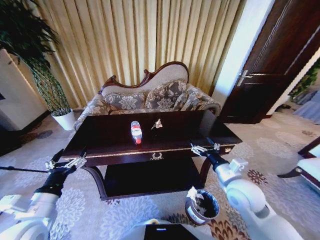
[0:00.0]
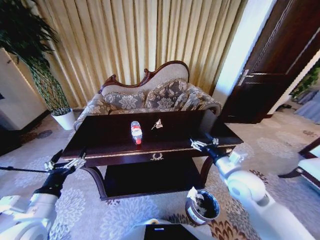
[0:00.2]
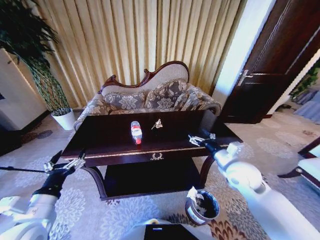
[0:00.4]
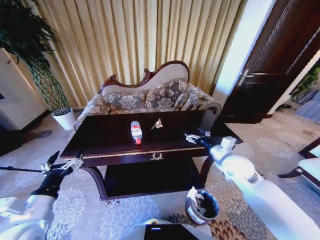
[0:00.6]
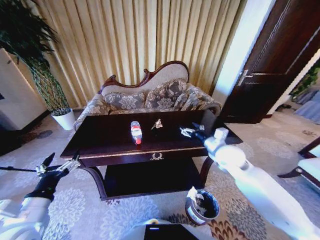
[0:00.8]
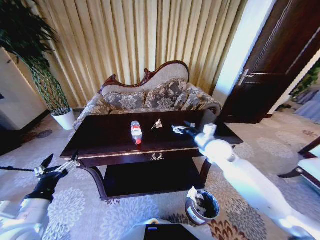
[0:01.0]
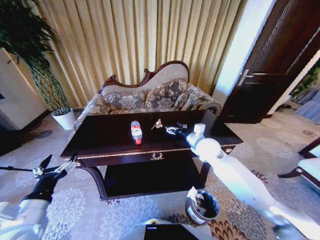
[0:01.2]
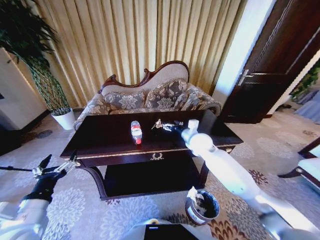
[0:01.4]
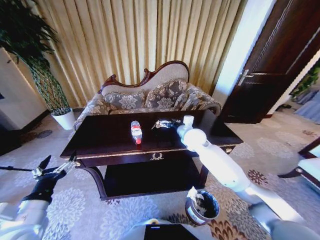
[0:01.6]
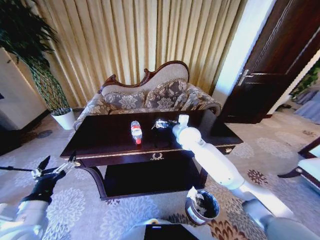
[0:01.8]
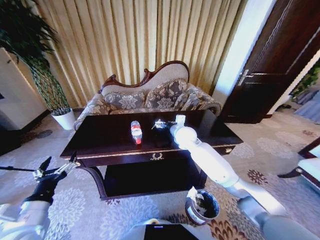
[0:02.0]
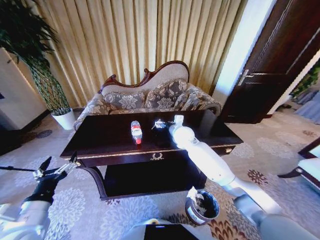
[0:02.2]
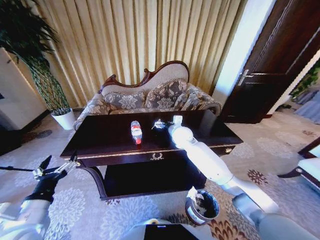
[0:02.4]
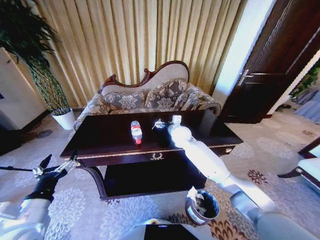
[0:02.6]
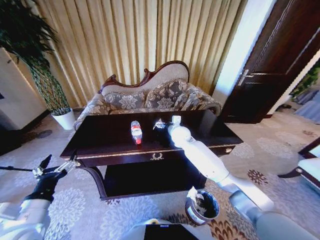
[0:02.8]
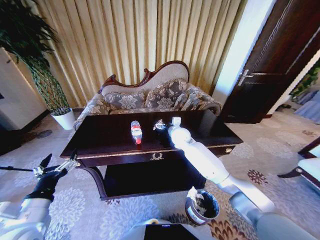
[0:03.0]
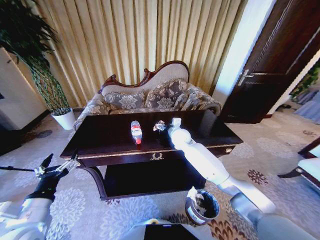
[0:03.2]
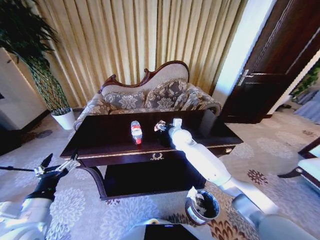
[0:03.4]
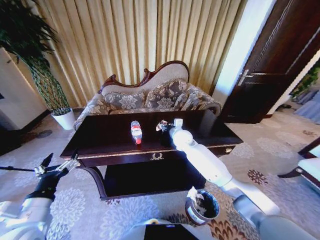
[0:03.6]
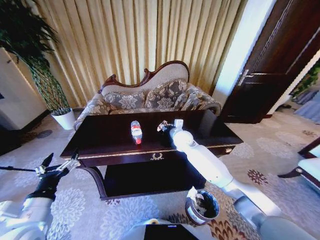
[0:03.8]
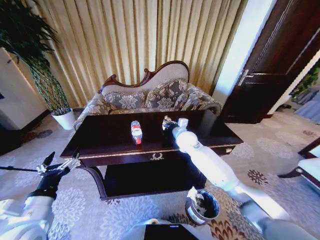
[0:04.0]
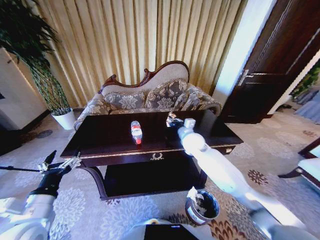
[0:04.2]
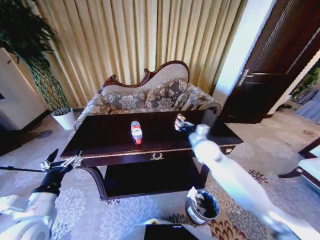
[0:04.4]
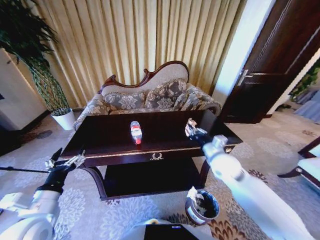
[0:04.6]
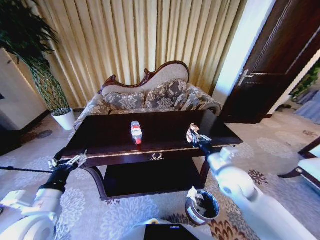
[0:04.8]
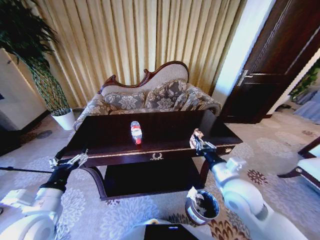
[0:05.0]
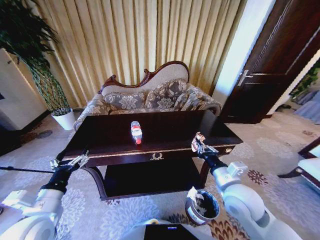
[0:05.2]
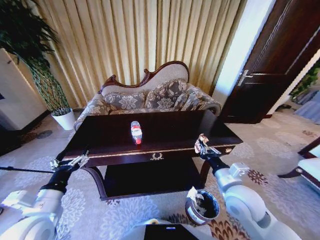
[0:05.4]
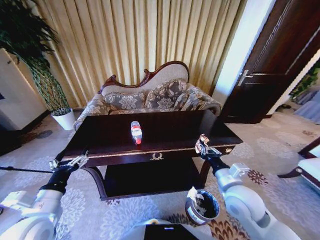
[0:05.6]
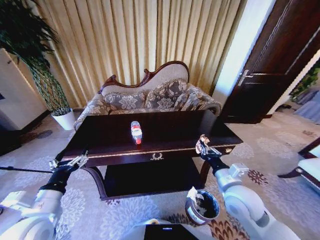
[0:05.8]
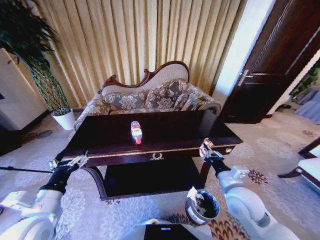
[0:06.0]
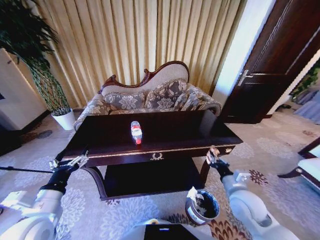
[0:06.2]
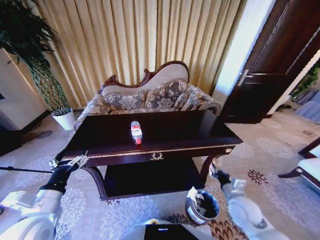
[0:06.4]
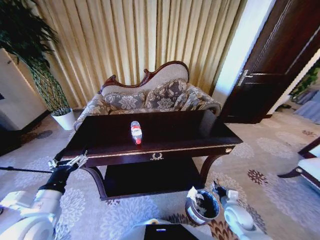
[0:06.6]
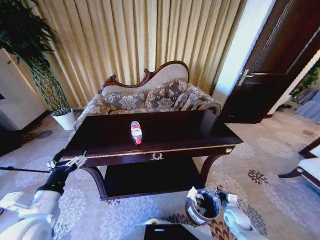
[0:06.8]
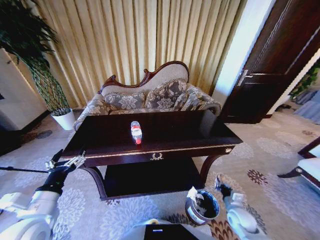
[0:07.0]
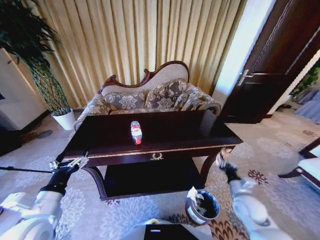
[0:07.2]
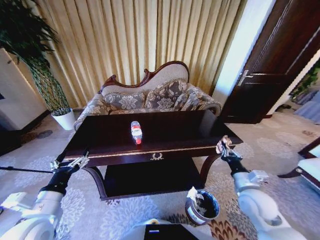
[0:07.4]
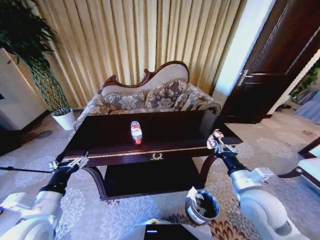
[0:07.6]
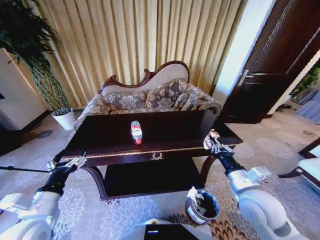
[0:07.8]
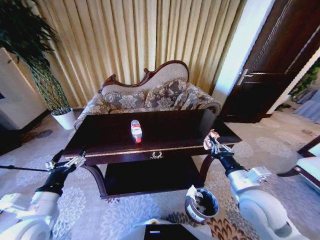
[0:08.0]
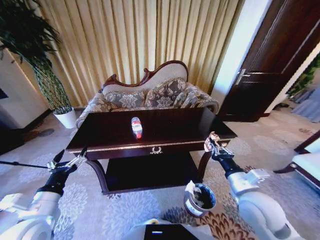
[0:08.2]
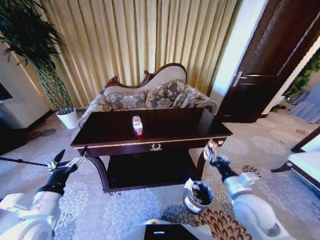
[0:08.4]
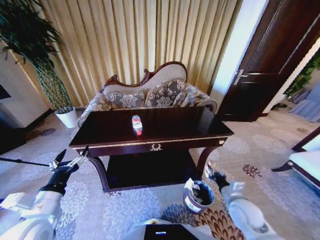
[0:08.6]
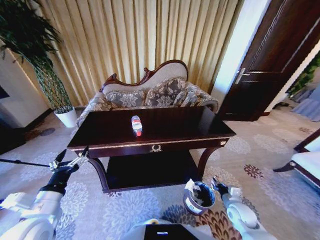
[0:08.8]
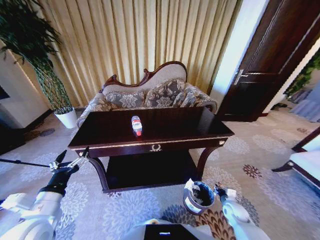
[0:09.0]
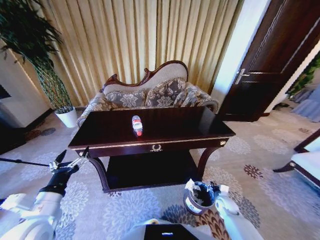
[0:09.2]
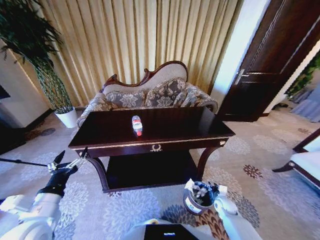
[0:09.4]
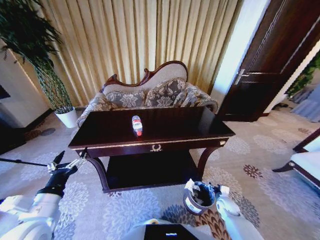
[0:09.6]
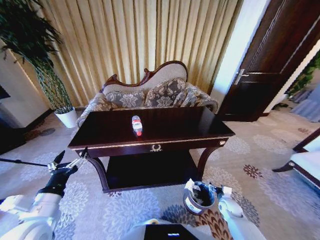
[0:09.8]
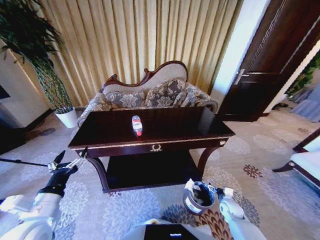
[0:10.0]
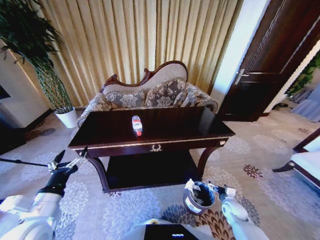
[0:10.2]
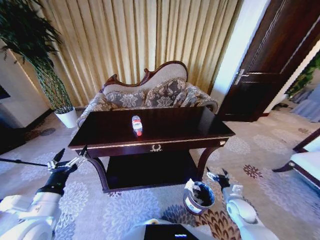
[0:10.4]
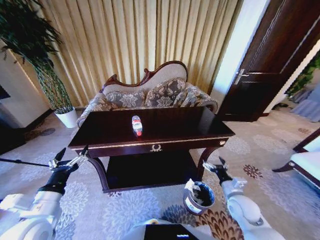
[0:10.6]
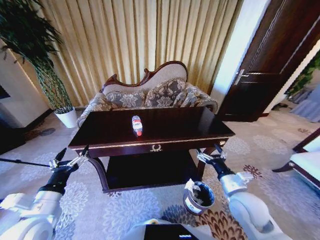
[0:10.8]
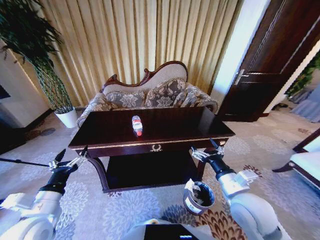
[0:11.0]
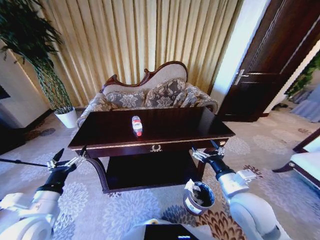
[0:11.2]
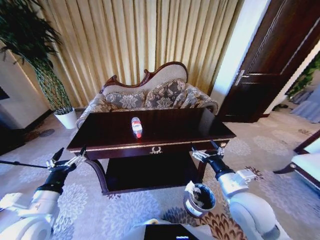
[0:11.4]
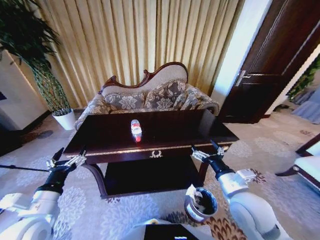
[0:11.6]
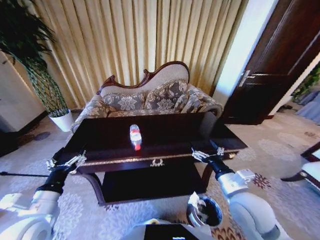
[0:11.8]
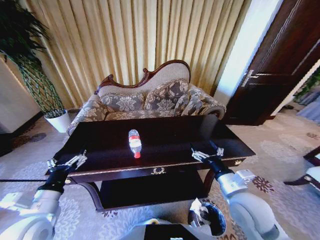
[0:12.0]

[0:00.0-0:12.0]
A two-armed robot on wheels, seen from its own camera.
Task of the whole recording: Move to the front of the table and place the trash on the table into the trash bin.
0:00.0 to 0:01.6: The right gripper shifts roughly 25 cm forward and to the left.
0:01.6 to 0:03.0: The right gripper travels to the left by approximately 5 cm.
0:03.0 to 0:04.4: The right gripper goes roughly 15 cm backward and to the right, and closes up.
0:04.4 to 0:06.0: The right gripper moves backward, some 20 cm.
0:06.0 to 0:07.6: The right gripper travels downward and back again, some 25 cm each way.
0:07.6 to 0:09.0: The right gripper moves downward, approximately 30 cm.
0:09.0 to 0:10.4: The right gripper travels upward by about 5 cm, and opens up.
0:10.4 to 0:12.0: The right gripper shifts roughly 25 cm upward and to the left.

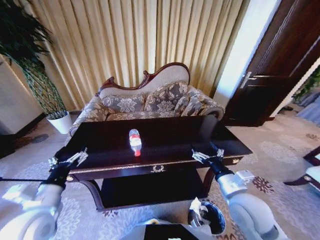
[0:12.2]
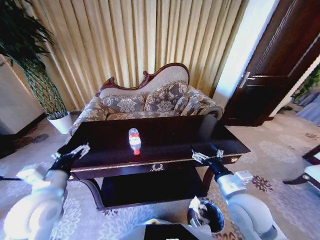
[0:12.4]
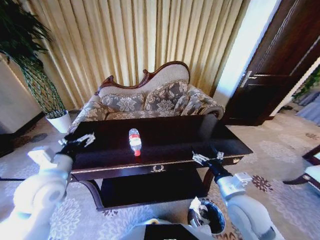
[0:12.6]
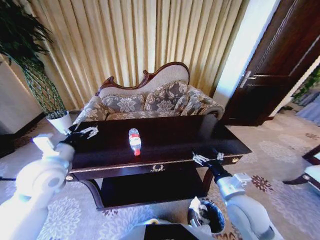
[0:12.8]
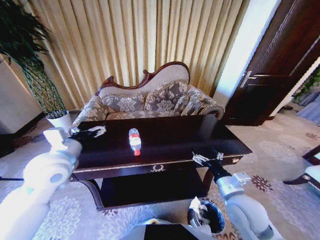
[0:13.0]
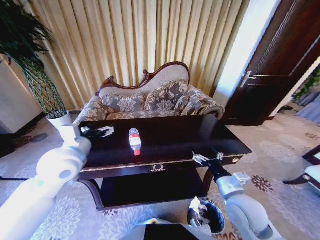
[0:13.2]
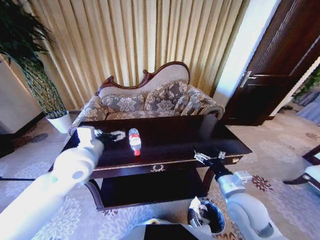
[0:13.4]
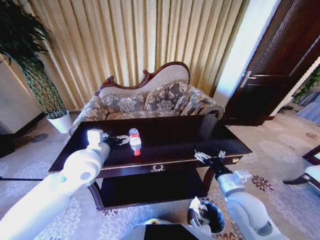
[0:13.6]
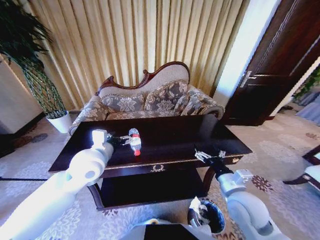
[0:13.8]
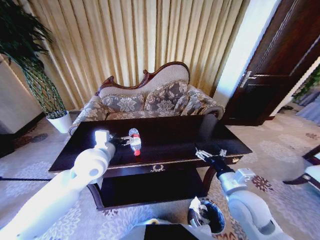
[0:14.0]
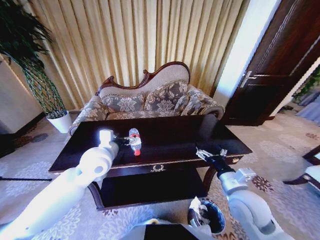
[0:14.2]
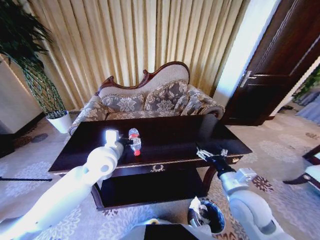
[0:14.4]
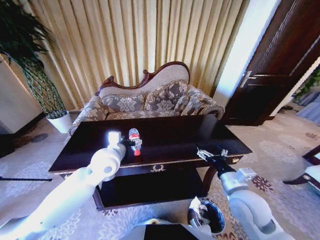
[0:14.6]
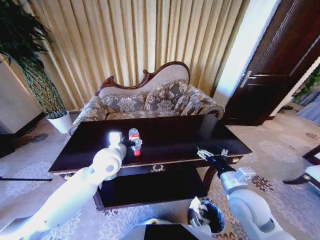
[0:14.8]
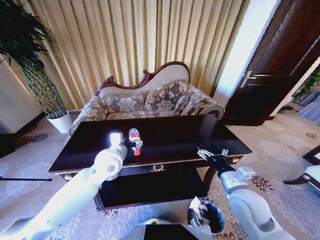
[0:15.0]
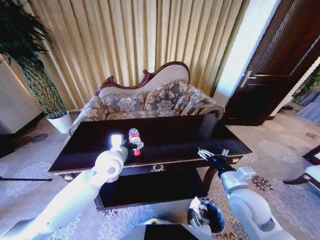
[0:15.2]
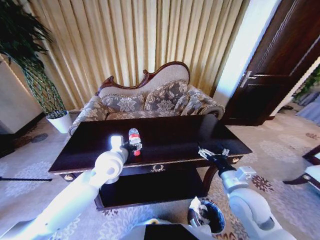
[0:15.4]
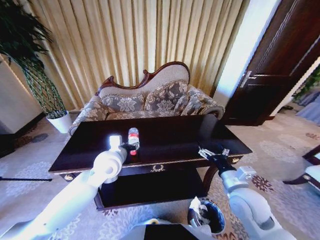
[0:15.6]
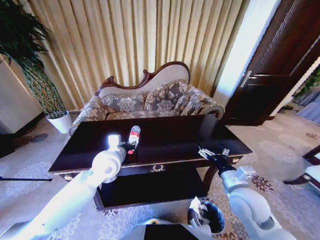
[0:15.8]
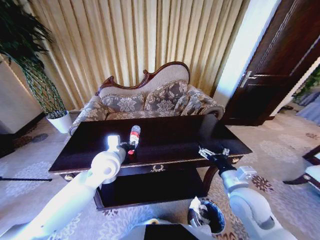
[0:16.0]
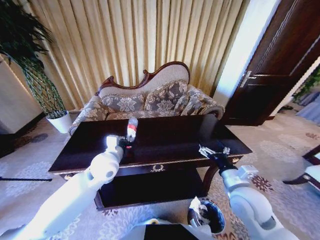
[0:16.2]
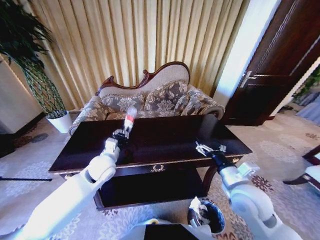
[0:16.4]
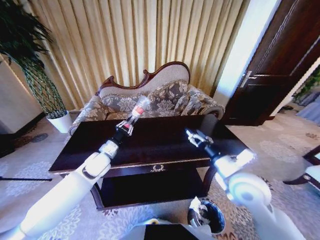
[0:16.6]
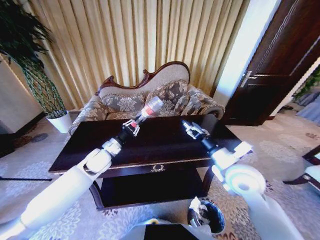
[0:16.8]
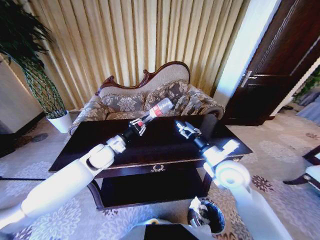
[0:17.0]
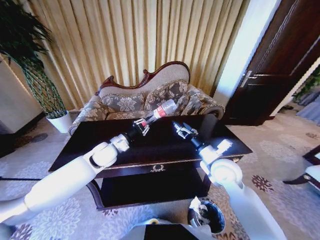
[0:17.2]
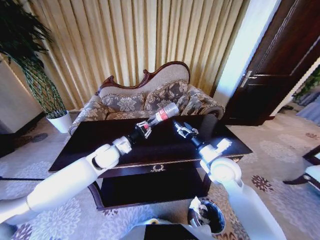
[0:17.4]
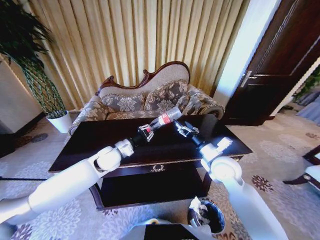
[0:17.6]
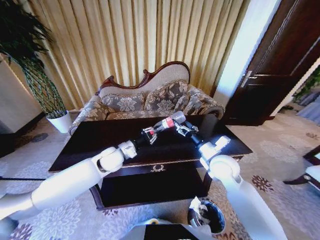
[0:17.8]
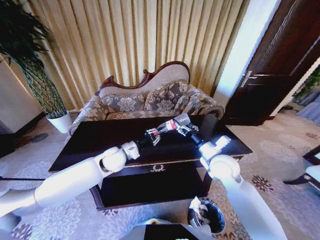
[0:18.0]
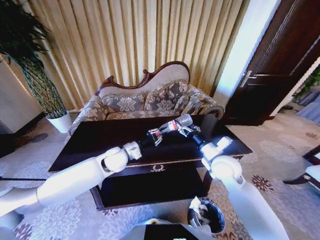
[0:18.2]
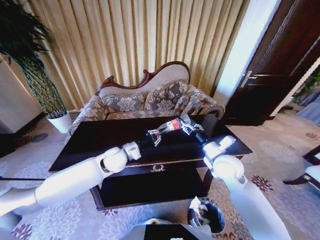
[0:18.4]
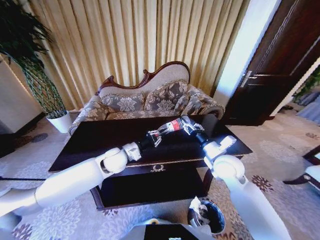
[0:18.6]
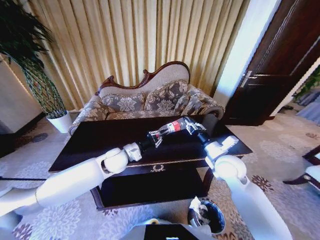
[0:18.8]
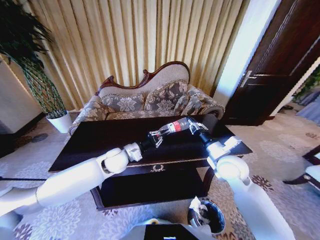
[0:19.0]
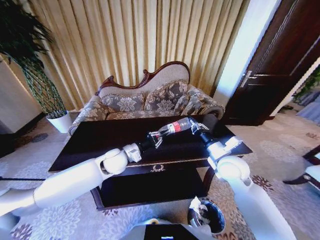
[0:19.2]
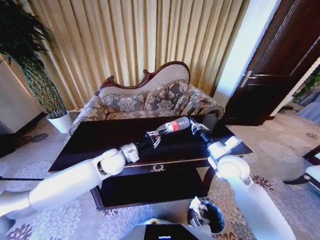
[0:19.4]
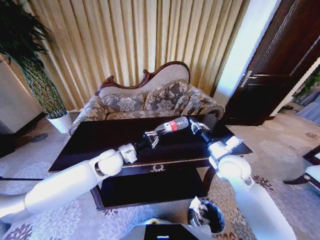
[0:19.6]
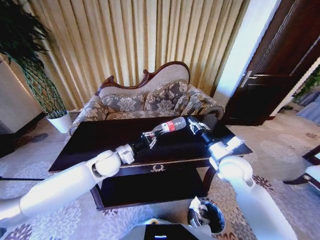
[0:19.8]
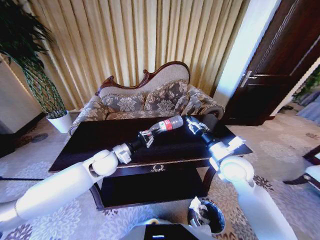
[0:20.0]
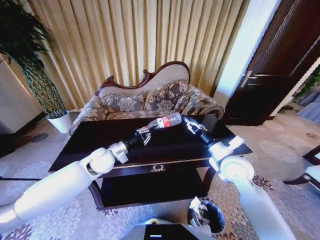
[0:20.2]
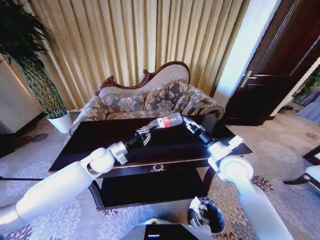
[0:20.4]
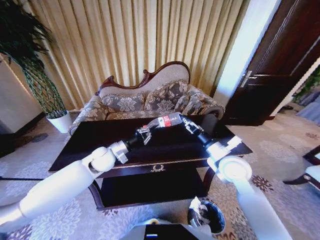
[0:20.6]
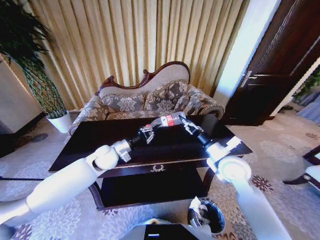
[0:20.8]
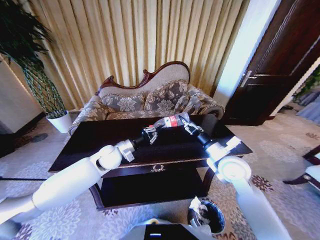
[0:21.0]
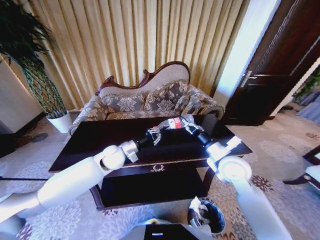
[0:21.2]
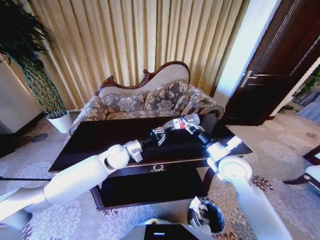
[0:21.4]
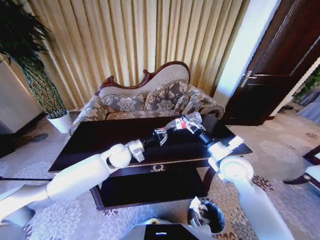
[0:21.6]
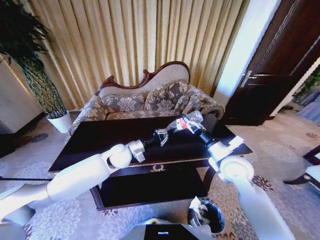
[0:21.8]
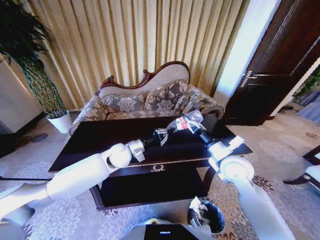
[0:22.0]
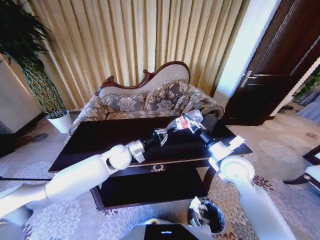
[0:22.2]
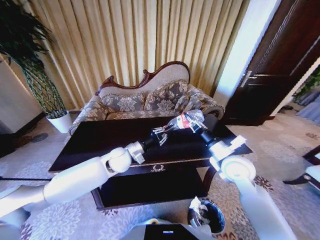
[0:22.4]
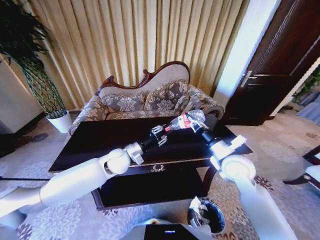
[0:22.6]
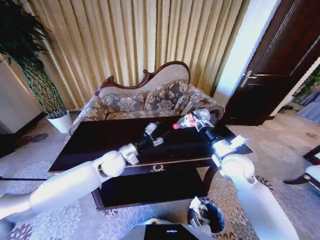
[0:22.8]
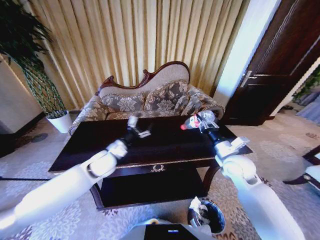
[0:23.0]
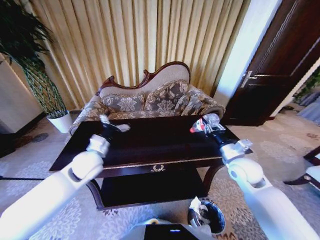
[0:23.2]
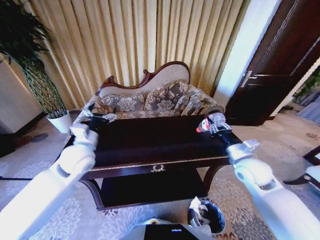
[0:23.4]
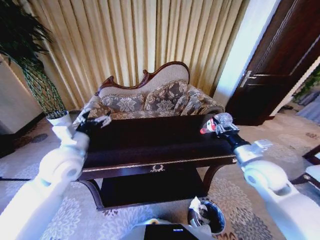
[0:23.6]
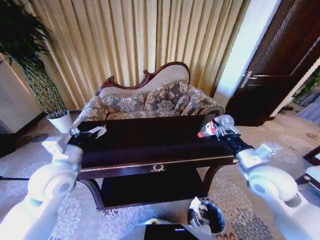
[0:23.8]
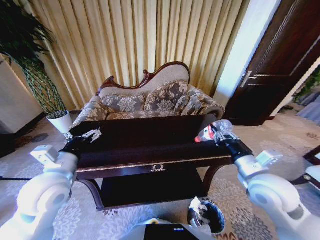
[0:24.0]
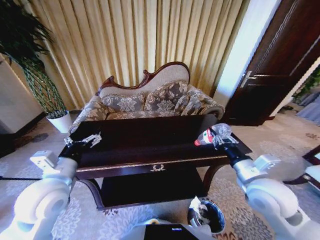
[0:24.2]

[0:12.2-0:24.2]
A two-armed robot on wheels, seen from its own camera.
Task of the whole recording: Move to the front of the table and place the trash on the table into the trash bin.
0:12.2 to 0:13.8: The left gripper heads forward and to the right, covering about 20 cm.
0:13.8 to 0:15.2: The left gripper moves some 5 cm.
0:15.2 to 0:16.6: The left gripper moves to the left and downward, approximately 10 cm, and closes up.
0:16.6 to 0:18.2: The right gripper moves forward, roughly 10 cm. Meanwhile the left gripper goes about 5 cm to the right.
0:18.2 to 0:19.8: The right gripper closes.
0:19.8 to 0:21.2: The right gripper opens its fingers.
0:21.2 to 0:22.6: The right gripper closes up.
0:22.6 to 0:24.2: The right gripper is displaced backward by some 10 cm. Meanwhile the left gripper travels backward, to the left and upward by some 20 cm, and opens its fingers.
